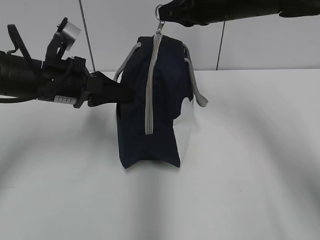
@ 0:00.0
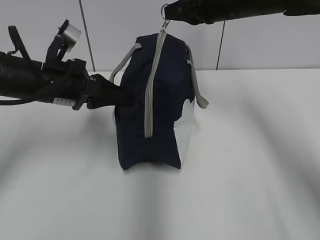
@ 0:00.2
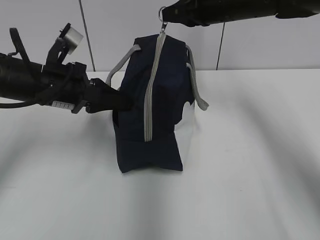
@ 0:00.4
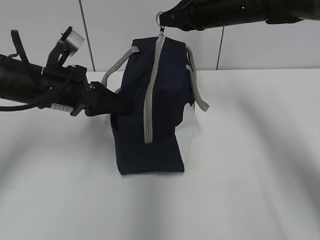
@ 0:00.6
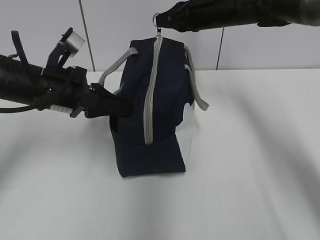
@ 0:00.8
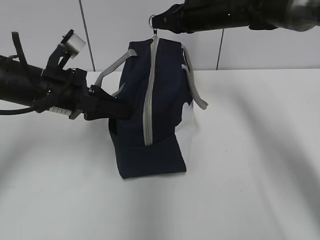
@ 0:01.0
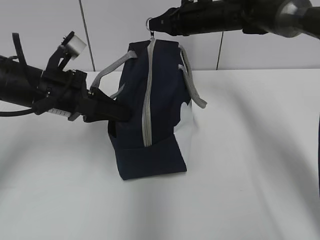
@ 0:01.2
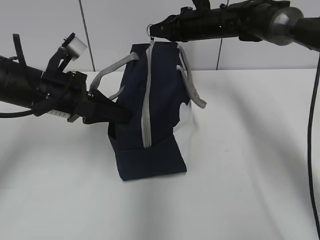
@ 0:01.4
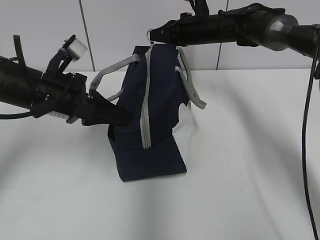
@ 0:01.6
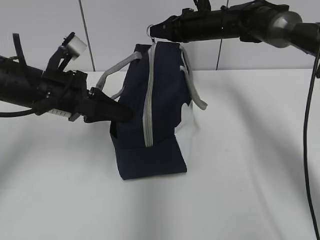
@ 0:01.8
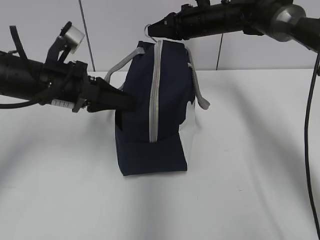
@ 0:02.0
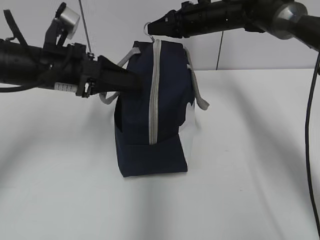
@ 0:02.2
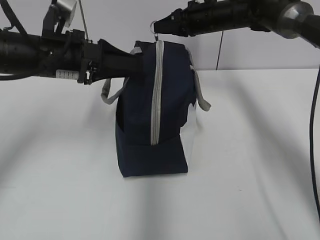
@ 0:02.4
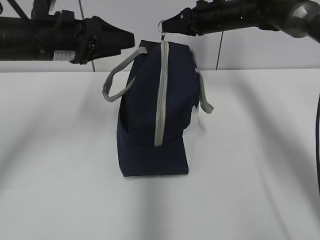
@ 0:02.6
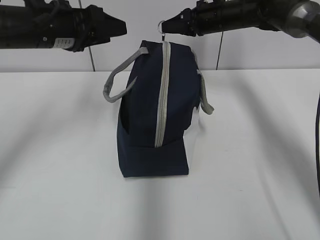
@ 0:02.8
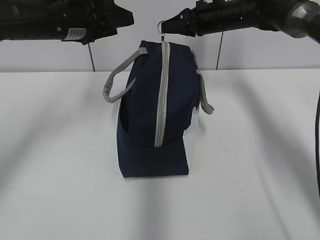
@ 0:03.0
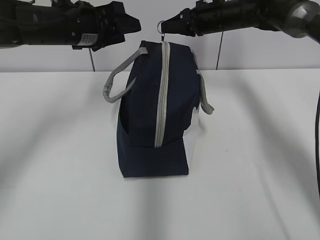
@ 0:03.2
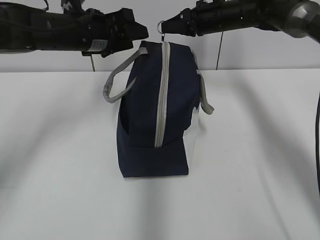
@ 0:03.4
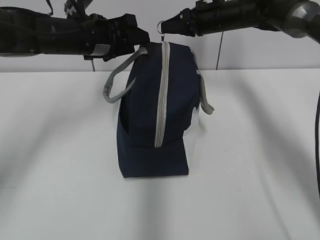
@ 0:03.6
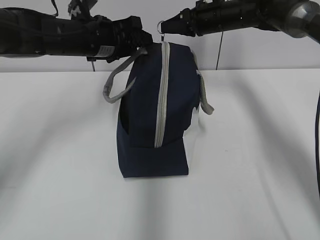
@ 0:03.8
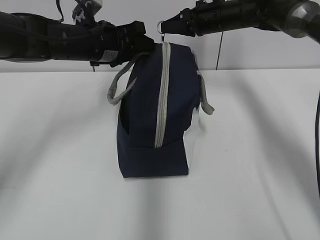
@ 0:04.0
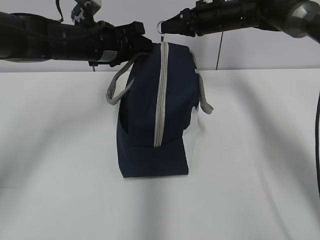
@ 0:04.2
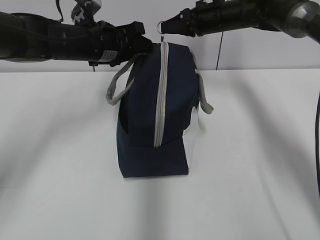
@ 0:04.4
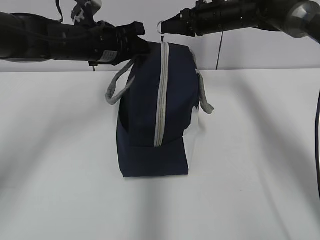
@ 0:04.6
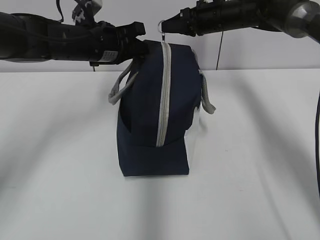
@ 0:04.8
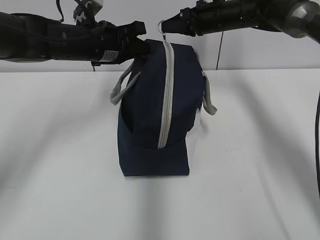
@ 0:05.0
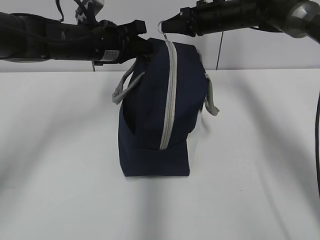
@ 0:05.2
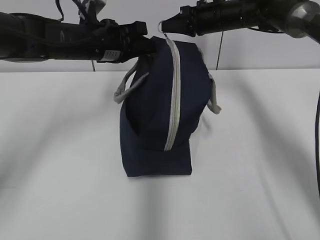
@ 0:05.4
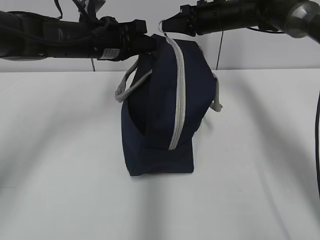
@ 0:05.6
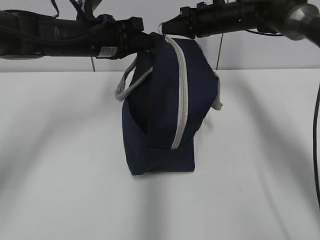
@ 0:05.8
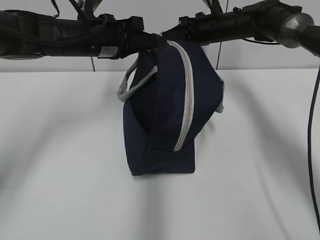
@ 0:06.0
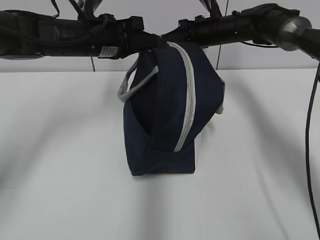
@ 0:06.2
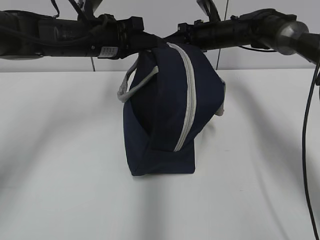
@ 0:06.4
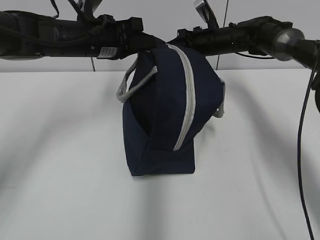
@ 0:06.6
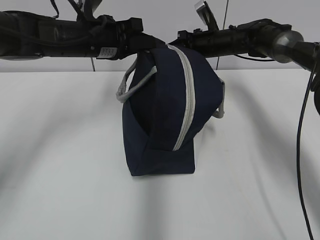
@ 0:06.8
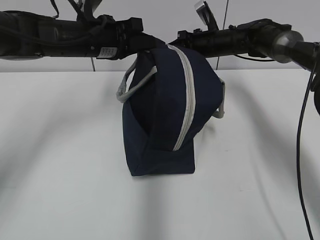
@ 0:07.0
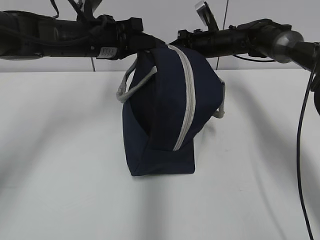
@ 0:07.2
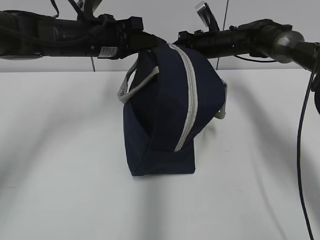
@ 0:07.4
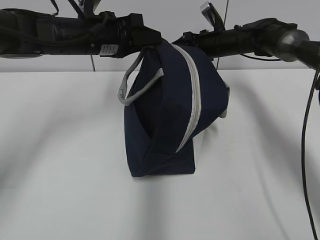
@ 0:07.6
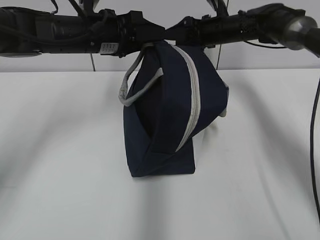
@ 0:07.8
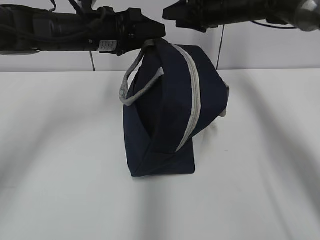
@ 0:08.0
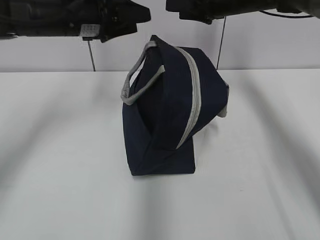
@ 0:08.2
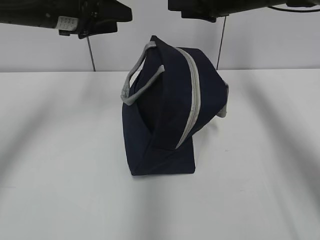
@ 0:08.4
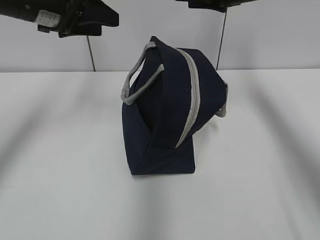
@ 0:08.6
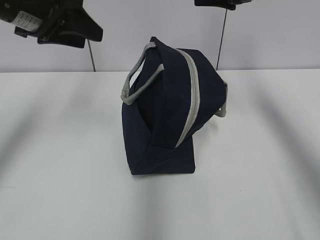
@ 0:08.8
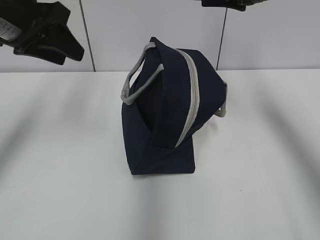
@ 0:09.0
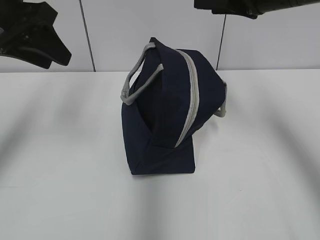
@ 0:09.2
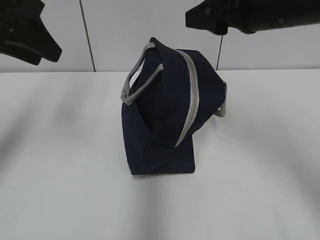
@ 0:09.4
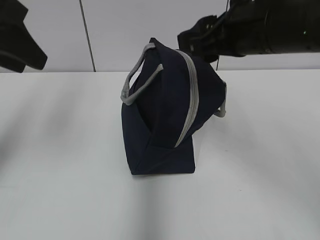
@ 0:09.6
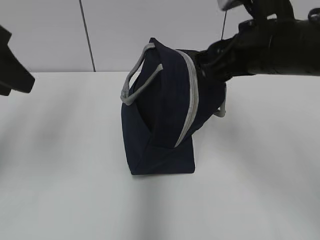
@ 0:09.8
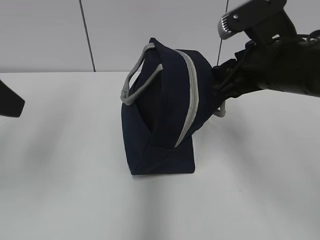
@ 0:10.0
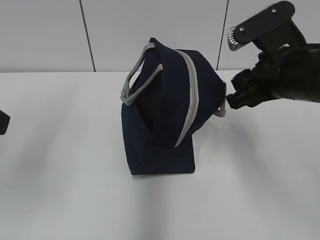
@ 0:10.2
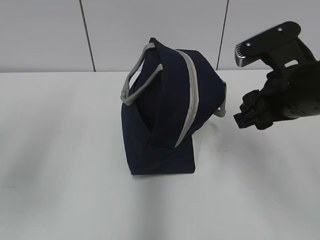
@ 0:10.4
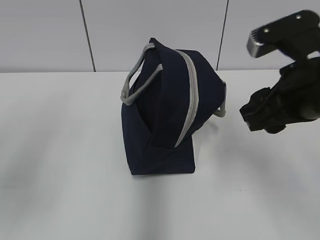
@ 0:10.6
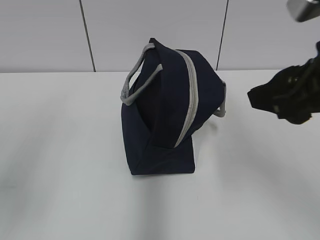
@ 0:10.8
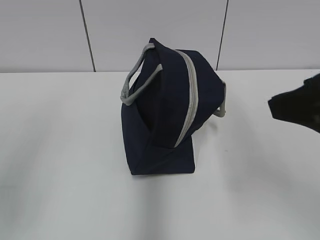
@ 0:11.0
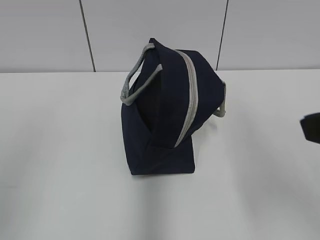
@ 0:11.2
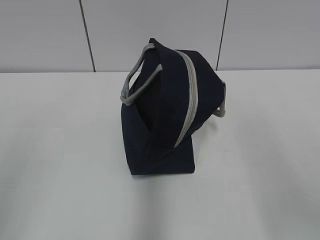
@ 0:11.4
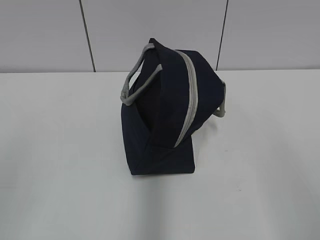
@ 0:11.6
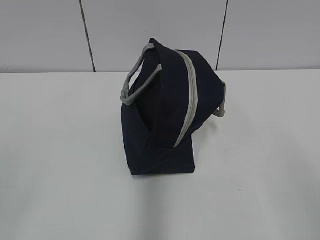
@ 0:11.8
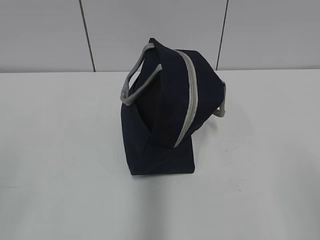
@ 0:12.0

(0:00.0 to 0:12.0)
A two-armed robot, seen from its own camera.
0:00.0 - 0:01.6: The right gripper goes approximately 15 cm forward and downward.
0:01.6 - 0:03.0: The left gripper shifts roughly 10 cm upward and forward, and opens its fingers.
0:03.0 - 0:04.4: The left gripper heads downward, covering roughly 5 cm.
0:04.4 - 0:06.0: The left gripper closes up.
0:06.0 - 0:07.6: The right gripper opens up.
0:07.6 - 0:09.0: The right gripper moves upward and backward, some 25 cm; the left gripper moves to the left, upward and backward, about 15 cm.
0:09.0 - 0:10.4: The left gripper travels backward by approximately 20 cm. The right gripper travels backward and downward by roughly 15 cm.
0:10.4 - 0:12.0: The left gripper shifts roughly 15 cm backward, and opens up; the right gripper moves backward, roughly 25 cm.

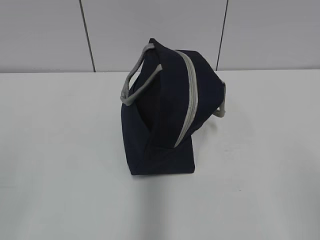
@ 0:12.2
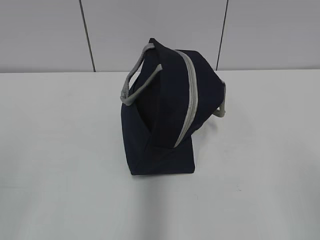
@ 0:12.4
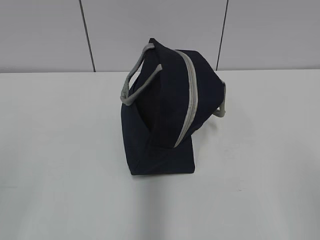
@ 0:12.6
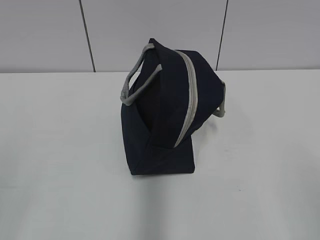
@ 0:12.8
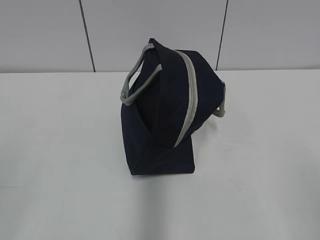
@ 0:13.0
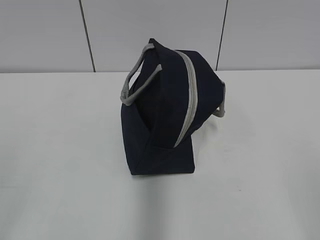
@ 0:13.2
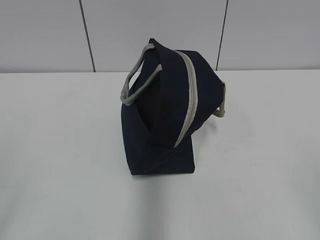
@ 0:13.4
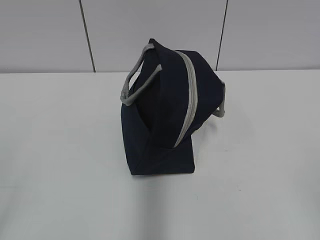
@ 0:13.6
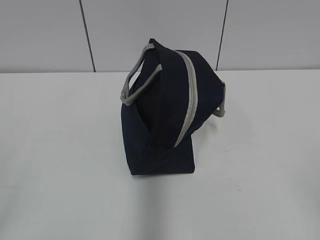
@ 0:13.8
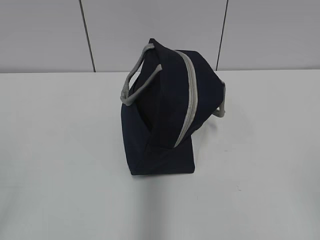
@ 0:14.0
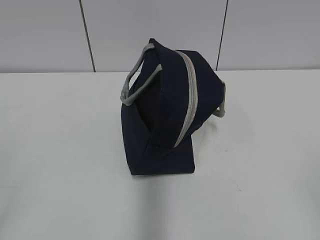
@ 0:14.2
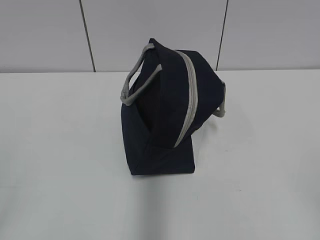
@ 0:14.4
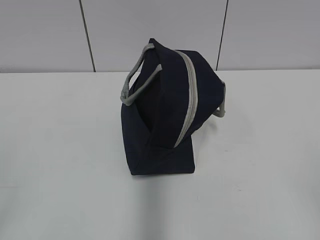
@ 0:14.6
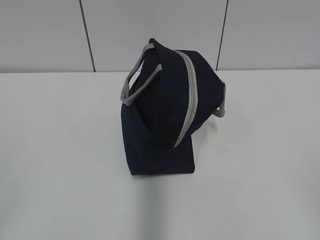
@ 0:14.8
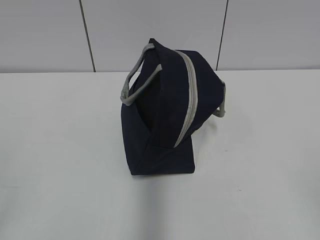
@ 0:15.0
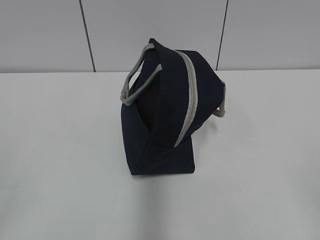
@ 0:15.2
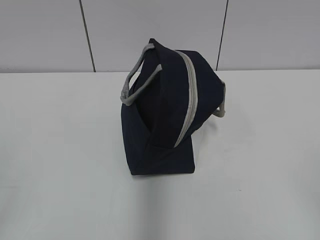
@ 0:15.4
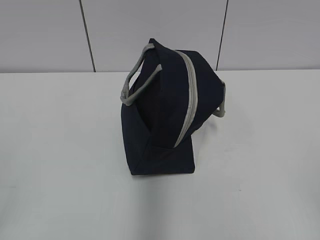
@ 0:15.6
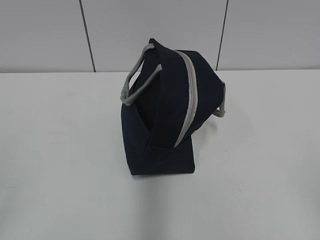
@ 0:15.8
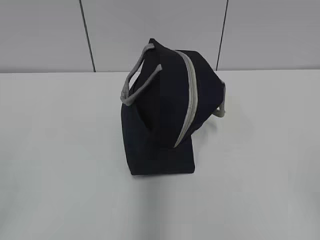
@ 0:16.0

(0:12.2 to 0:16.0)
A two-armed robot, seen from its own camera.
0:14.8 - 0:16.0: Both grippers stay about where they are.

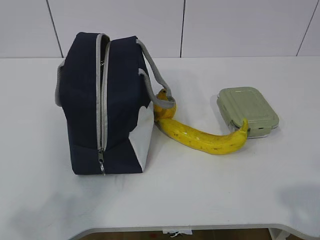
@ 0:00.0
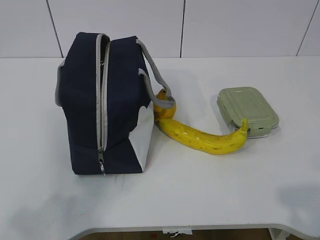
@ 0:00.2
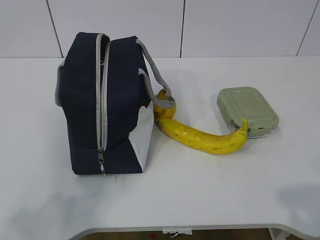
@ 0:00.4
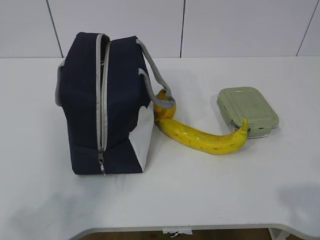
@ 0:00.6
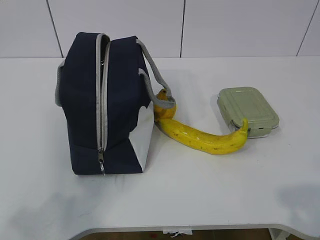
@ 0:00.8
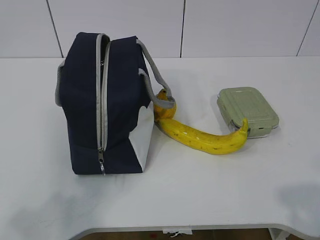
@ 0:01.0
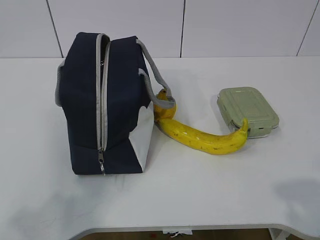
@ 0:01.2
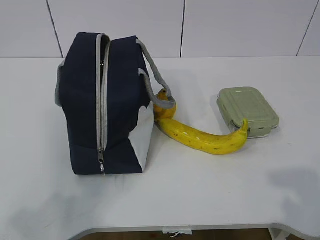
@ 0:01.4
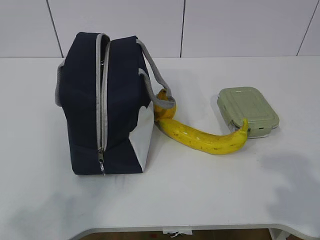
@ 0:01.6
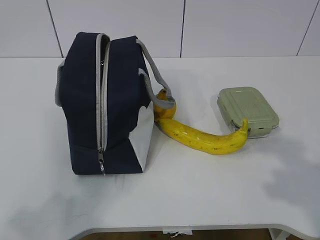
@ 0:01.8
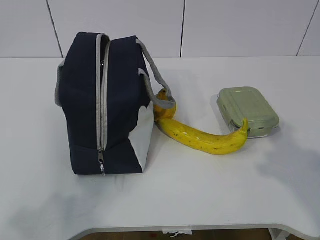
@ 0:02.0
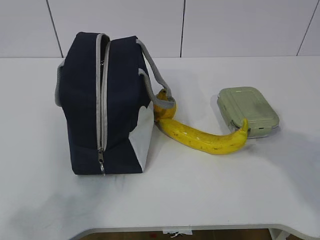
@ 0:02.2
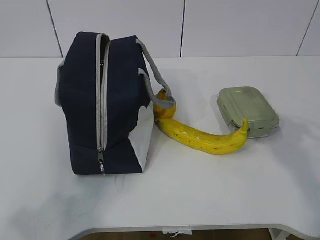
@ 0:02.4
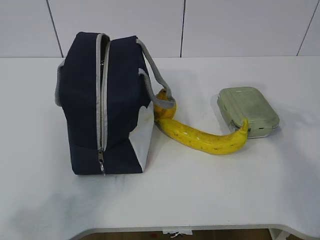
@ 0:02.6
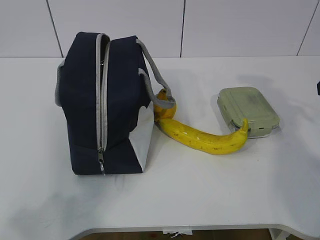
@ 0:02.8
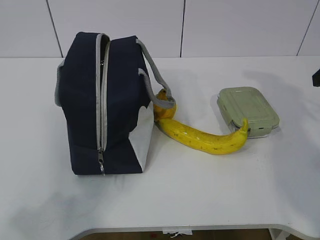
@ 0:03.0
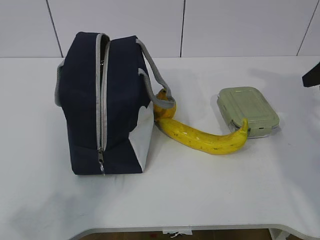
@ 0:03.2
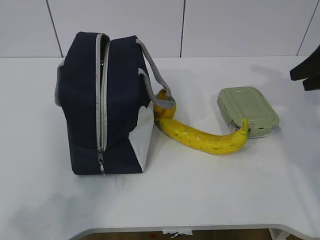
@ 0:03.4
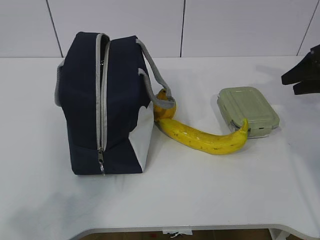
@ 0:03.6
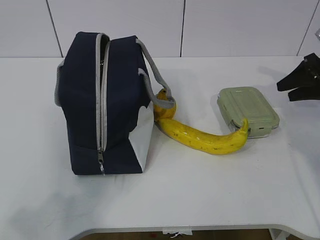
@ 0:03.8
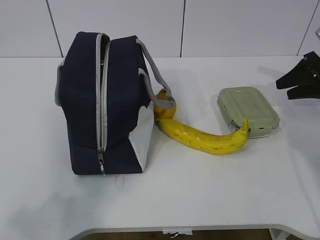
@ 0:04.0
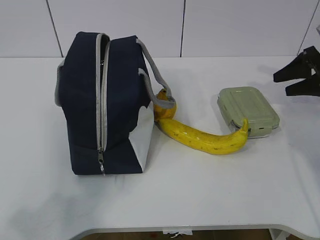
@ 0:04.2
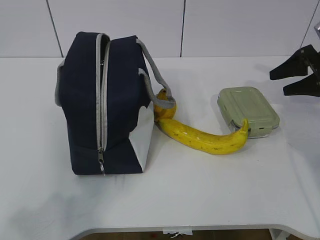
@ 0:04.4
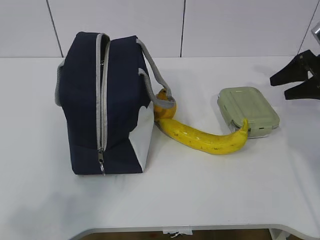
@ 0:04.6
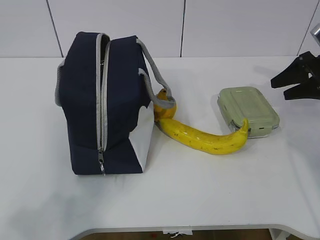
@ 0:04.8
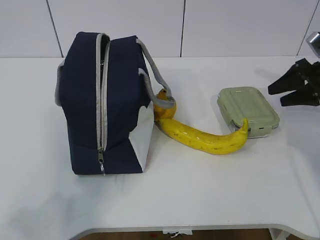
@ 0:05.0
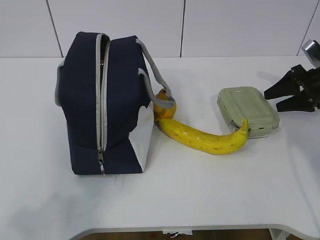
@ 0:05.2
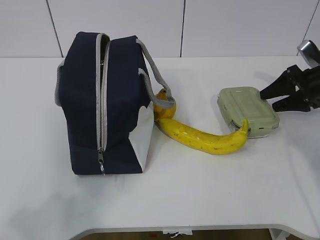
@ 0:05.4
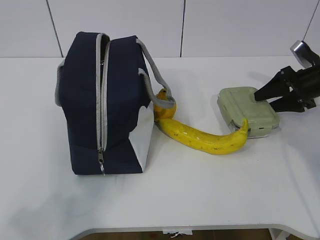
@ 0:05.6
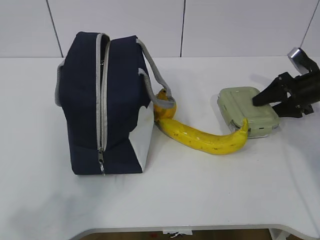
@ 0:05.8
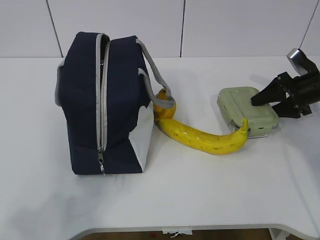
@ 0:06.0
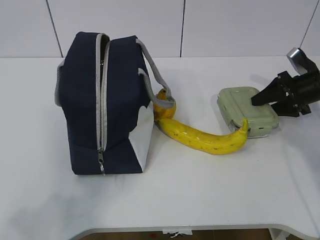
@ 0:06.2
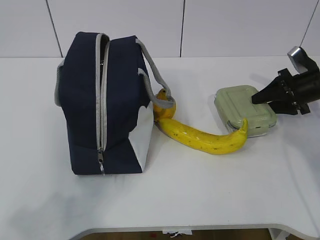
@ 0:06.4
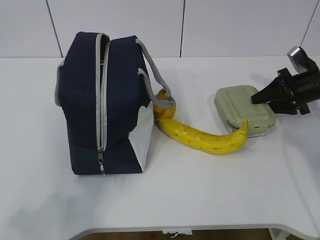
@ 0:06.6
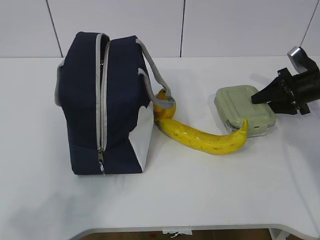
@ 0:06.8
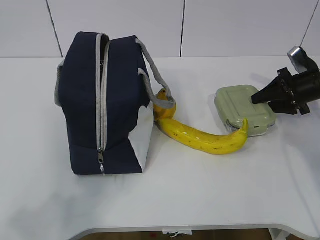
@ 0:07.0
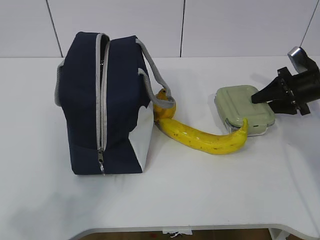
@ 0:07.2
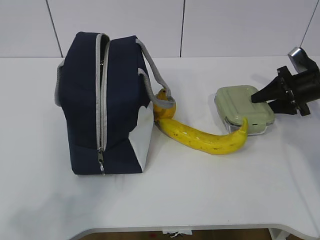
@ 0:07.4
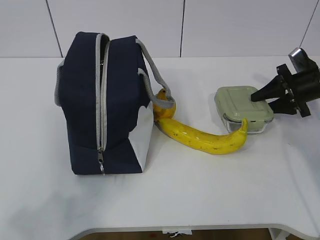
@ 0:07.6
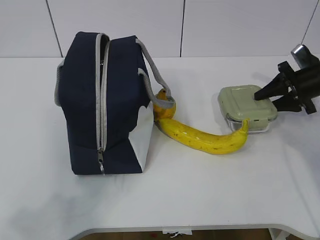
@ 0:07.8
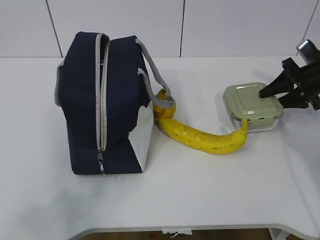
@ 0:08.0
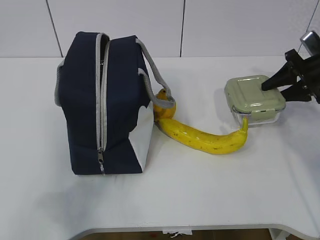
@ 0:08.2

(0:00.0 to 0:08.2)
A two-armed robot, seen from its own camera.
Step, 0:00.0 - 0:06.6: Grasp the box with the right gripper.
0:01.6 - 0:03.2: The right gripper heads forward, covering approximately 30 cm.
0:03.2 - 0:05.0: The right gripper goes roughly 15 cm downward and forward.
0:05.0 - 0:08.2: There are only small adjustments of the grippers.
